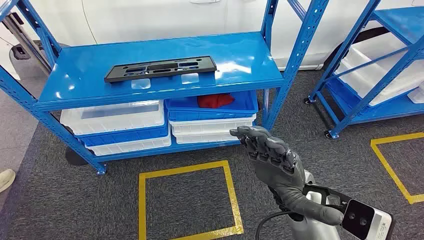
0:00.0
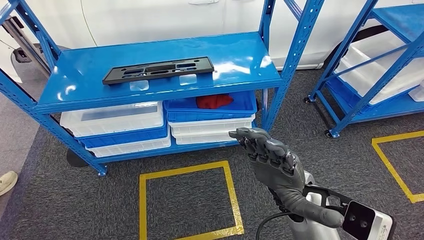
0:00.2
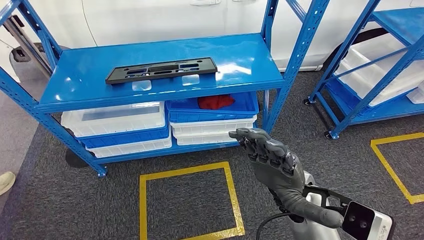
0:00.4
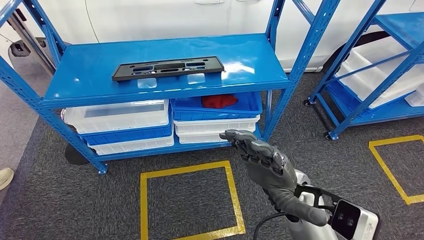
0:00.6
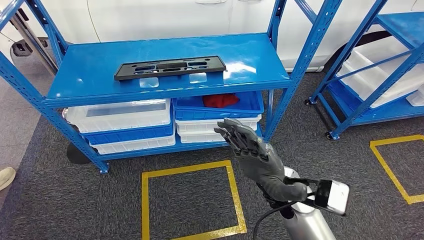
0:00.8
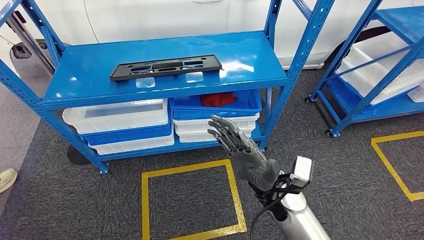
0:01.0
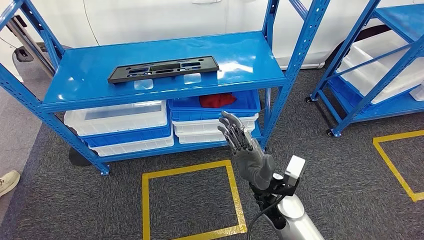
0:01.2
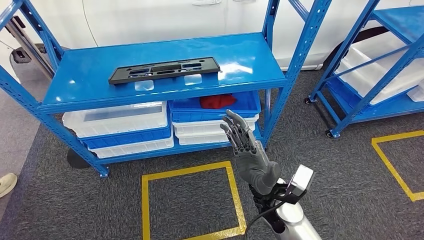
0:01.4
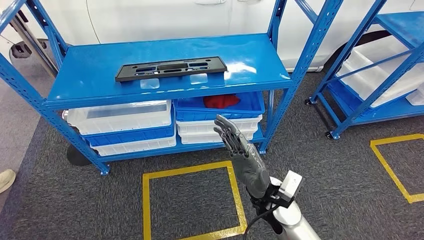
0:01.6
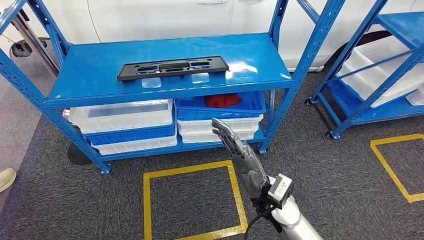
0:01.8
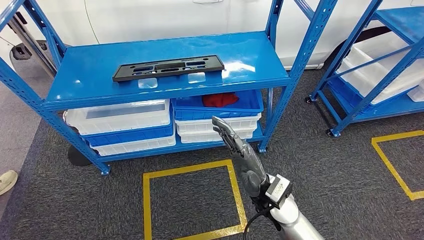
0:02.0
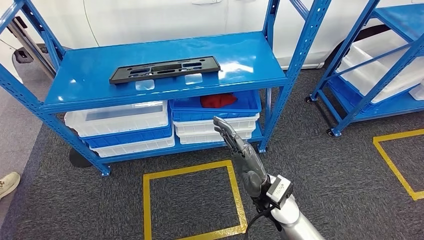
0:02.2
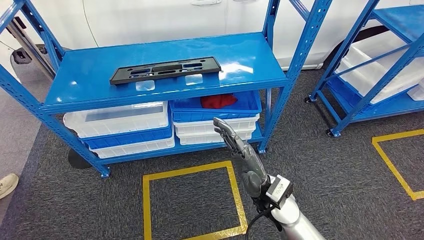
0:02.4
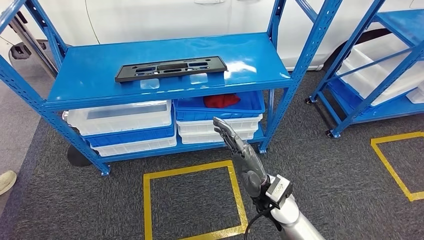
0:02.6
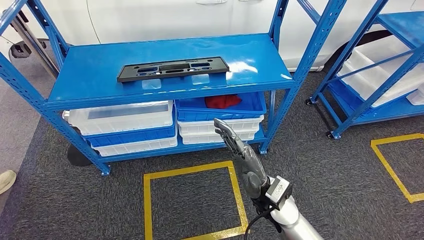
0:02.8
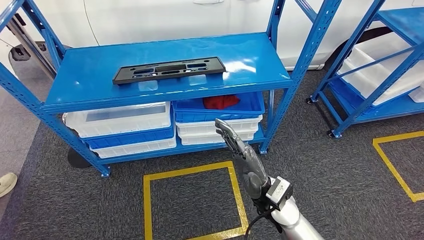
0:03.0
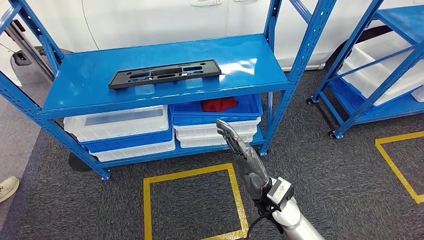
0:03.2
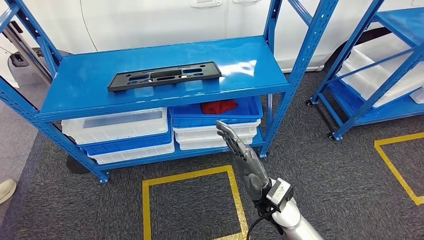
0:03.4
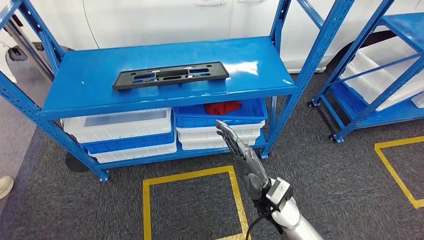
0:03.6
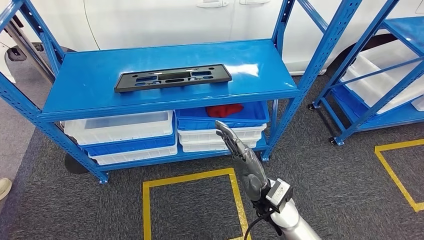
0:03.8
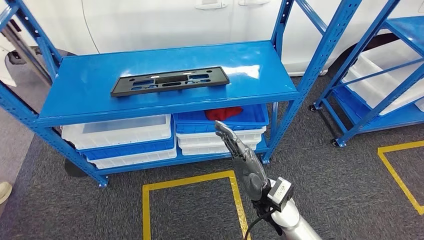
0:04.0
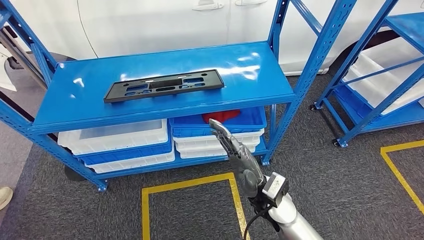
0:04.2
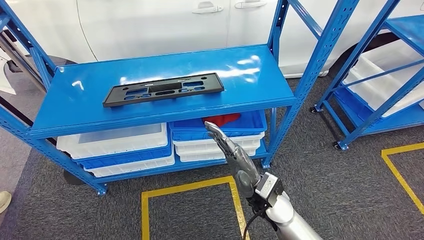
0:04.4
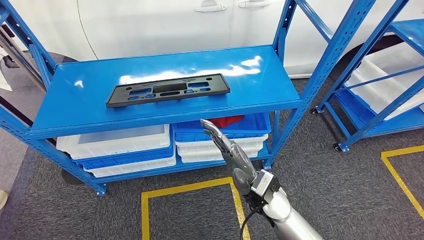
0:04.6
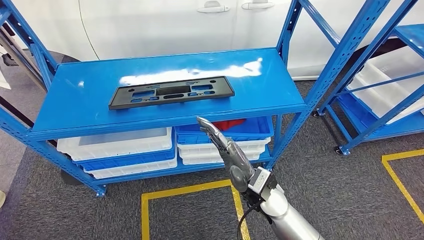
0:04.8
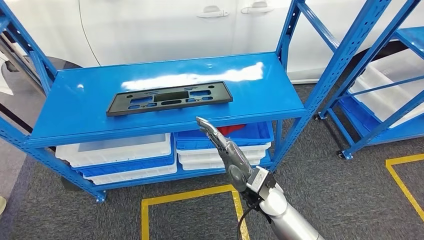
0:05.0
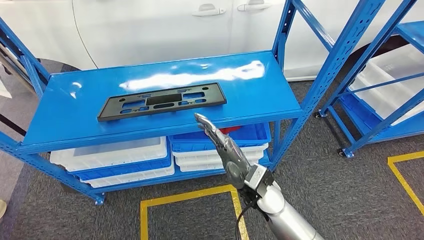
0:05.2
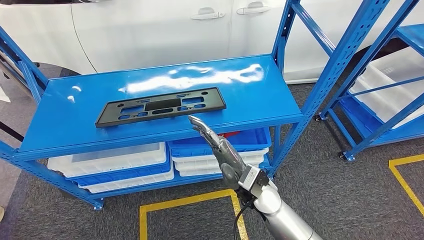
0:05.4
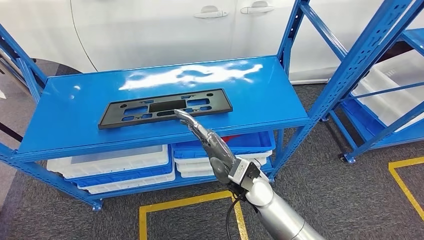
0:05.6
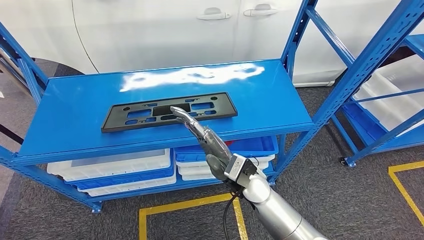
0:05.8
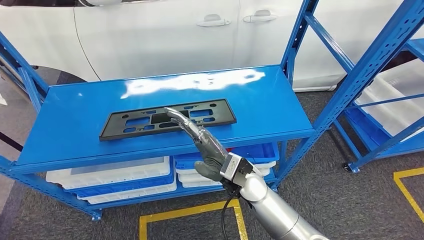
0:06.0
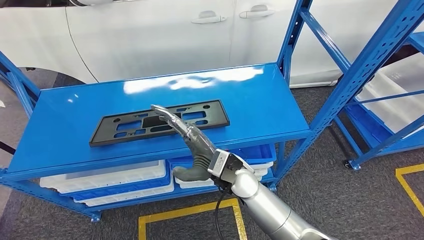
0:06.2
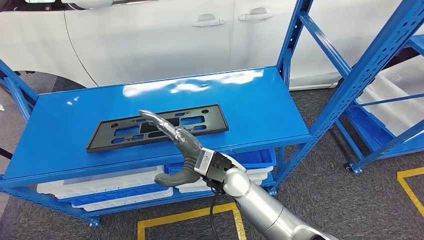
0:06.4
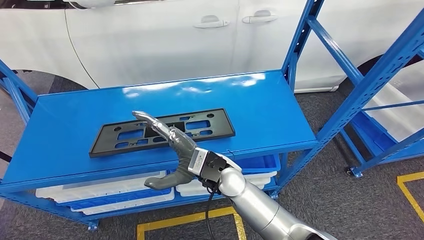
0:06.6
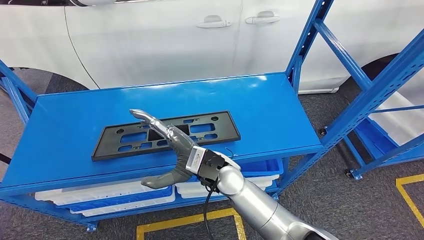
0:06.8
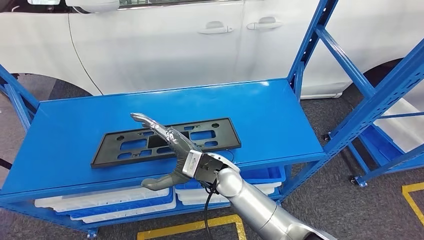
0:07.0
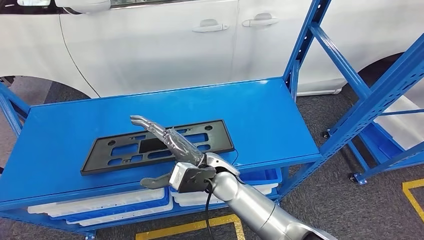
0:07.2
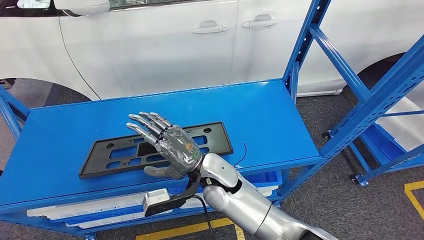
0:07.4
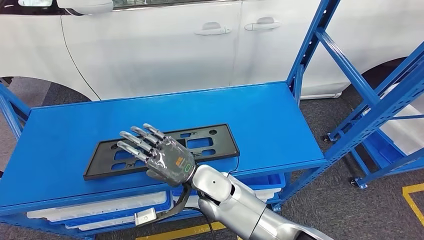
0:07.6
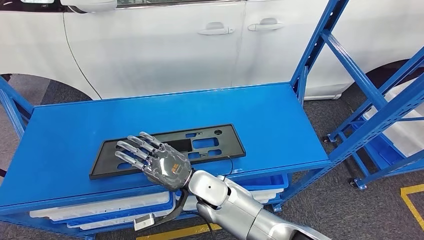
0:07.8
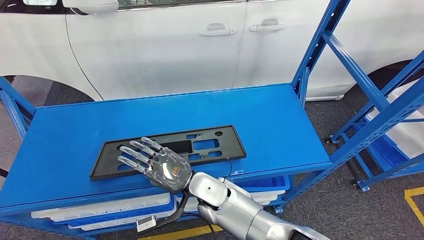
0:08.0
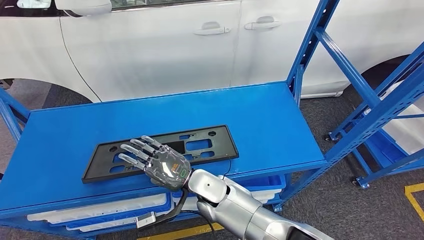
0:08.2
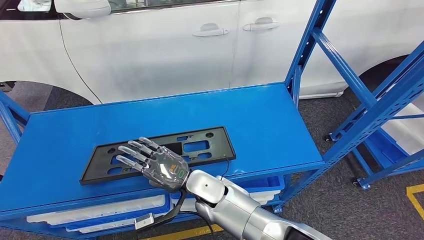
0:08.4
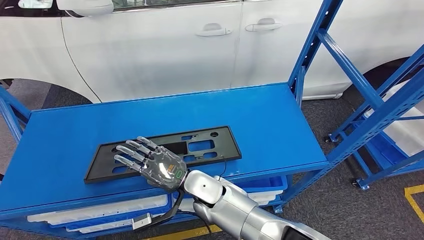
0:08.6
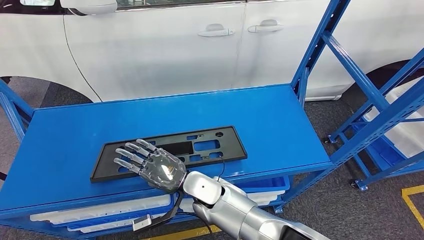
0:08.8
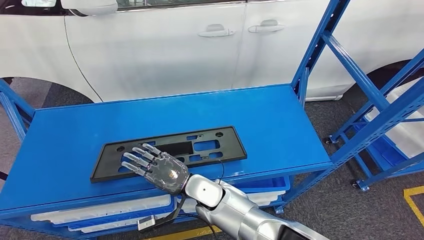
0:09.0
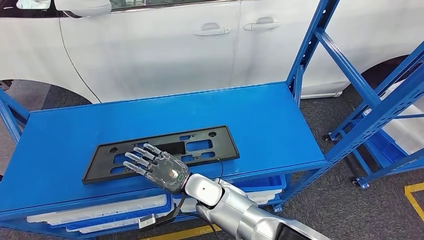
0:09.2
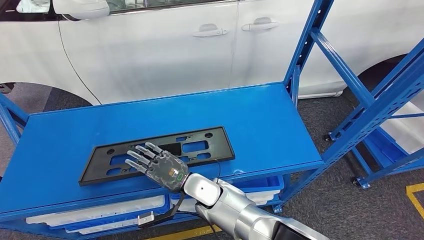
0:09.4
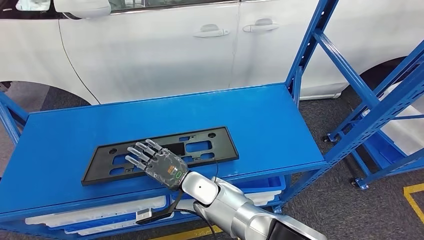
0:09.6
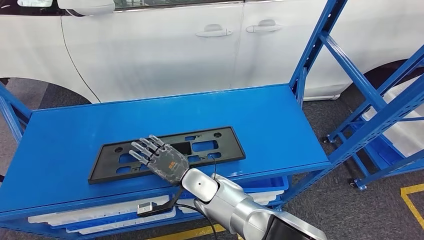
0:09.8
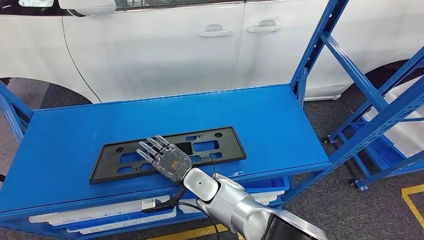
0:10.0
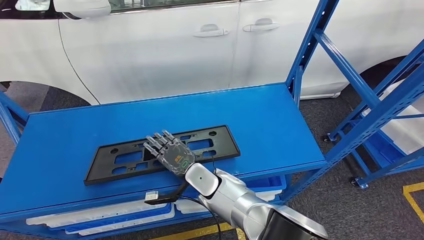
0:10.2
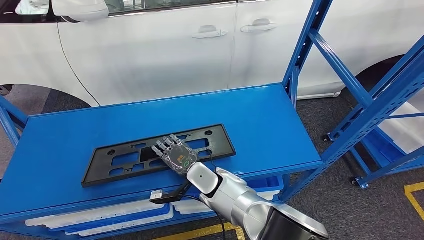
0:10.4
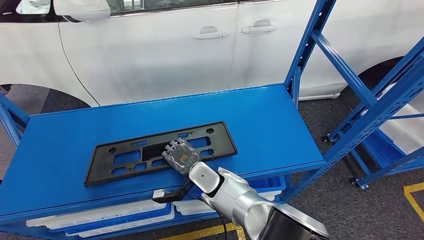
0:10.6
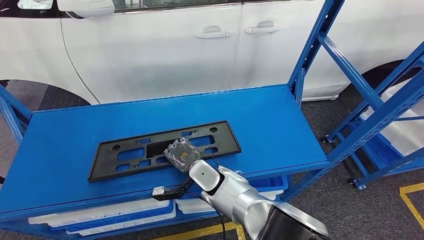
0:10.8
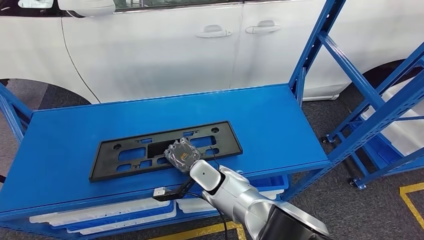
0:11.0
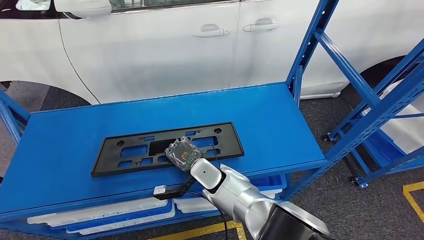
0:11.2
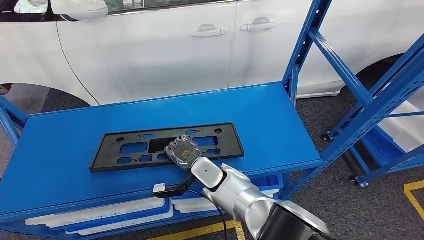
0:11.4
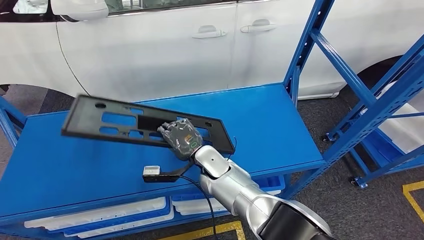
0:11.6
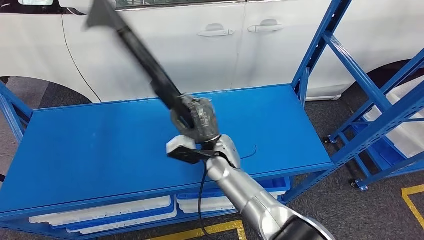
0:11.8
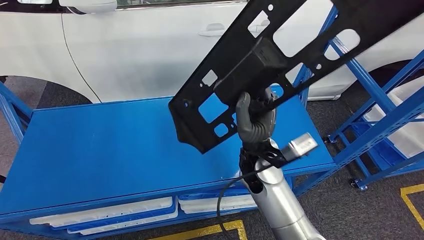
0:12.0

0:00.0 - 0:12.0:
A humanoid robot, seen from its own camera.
0:01.6 - 0:03.0: The hands move only a little.

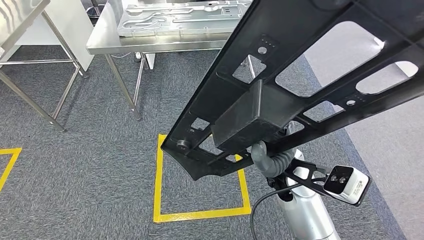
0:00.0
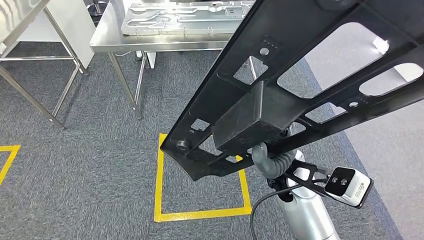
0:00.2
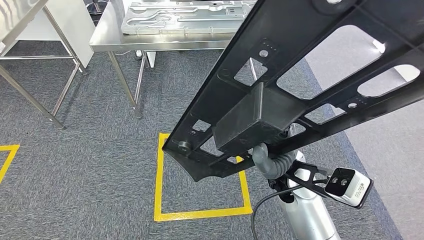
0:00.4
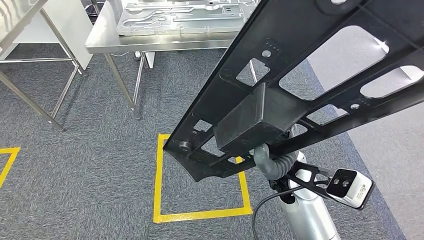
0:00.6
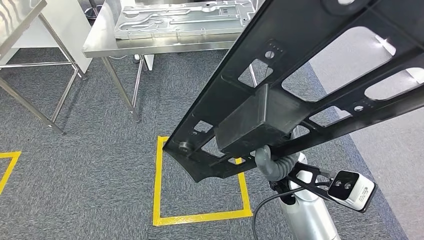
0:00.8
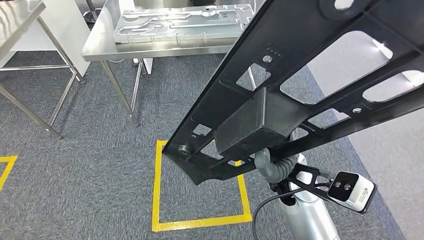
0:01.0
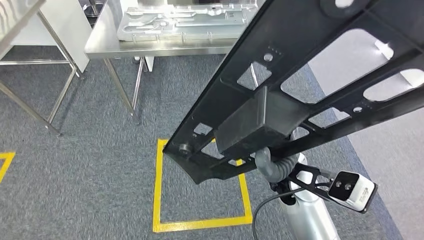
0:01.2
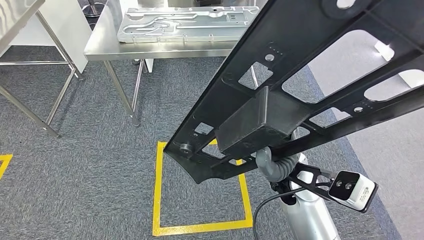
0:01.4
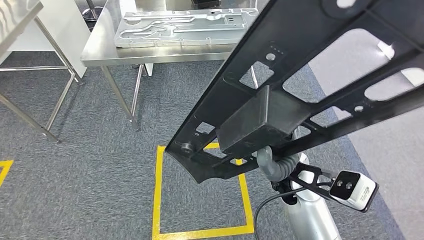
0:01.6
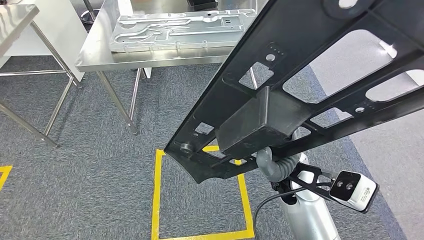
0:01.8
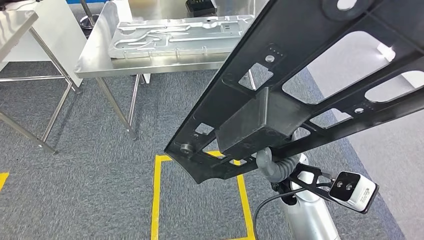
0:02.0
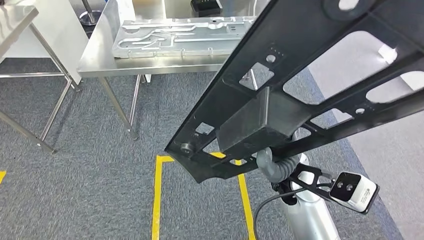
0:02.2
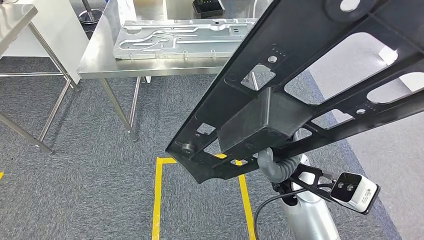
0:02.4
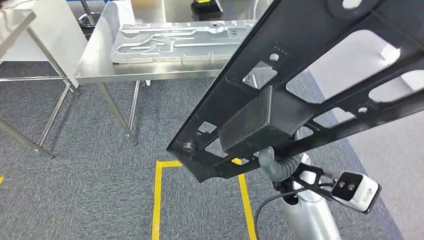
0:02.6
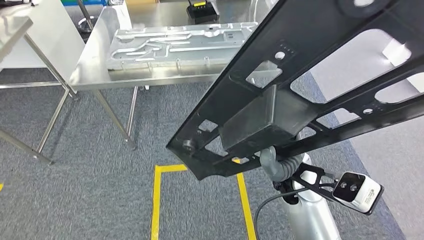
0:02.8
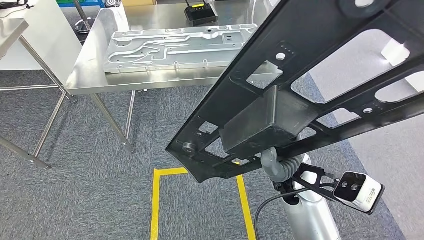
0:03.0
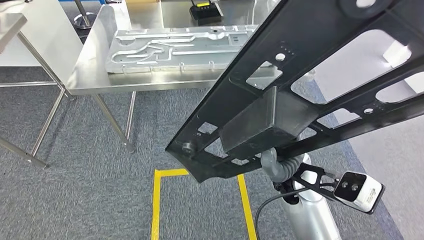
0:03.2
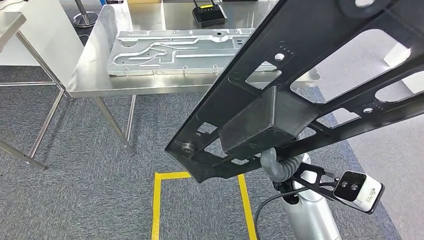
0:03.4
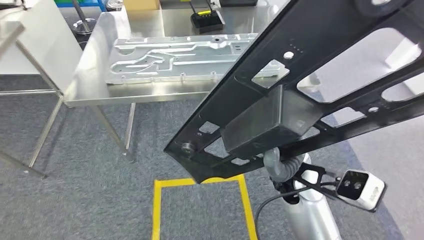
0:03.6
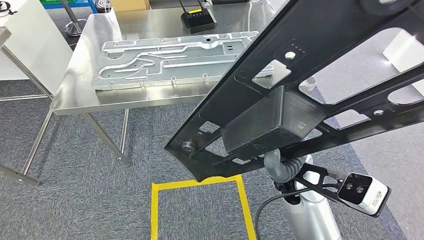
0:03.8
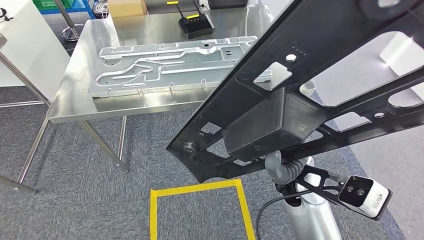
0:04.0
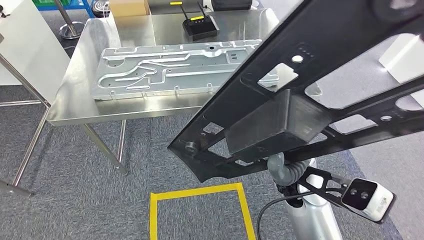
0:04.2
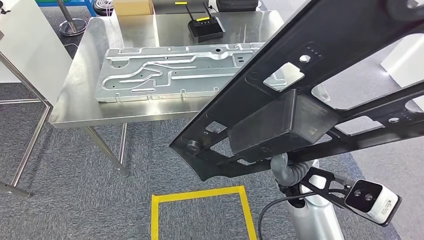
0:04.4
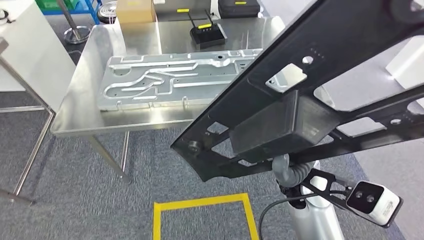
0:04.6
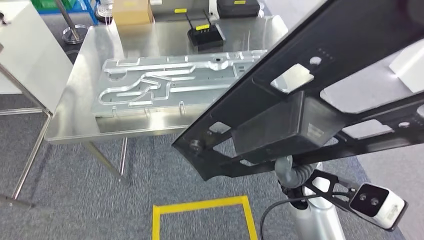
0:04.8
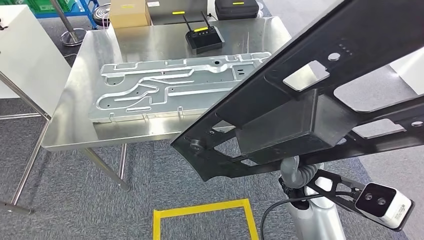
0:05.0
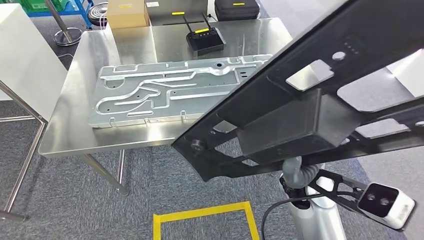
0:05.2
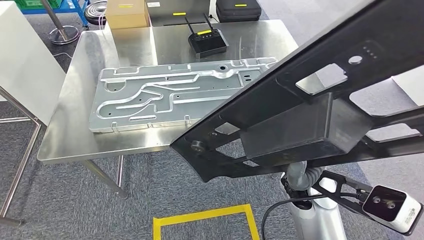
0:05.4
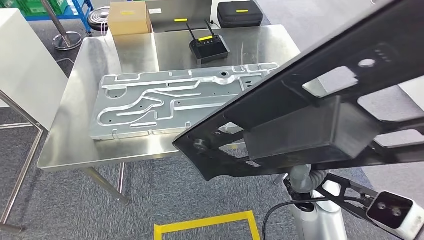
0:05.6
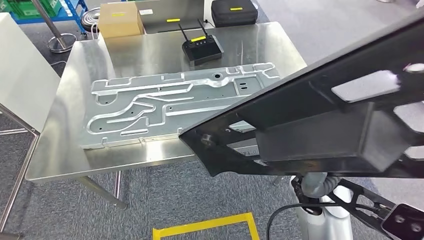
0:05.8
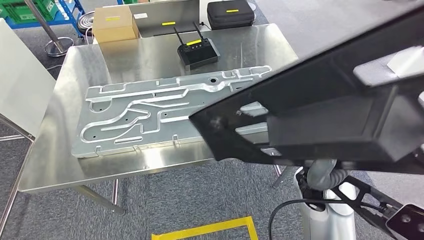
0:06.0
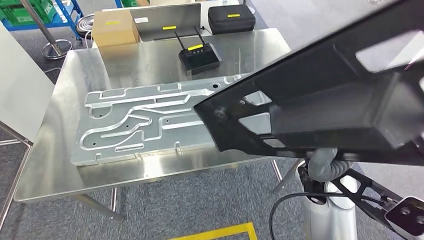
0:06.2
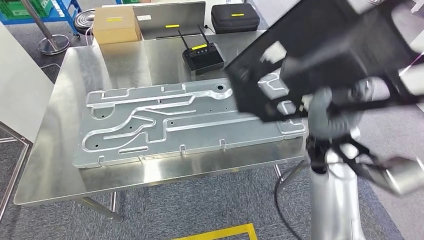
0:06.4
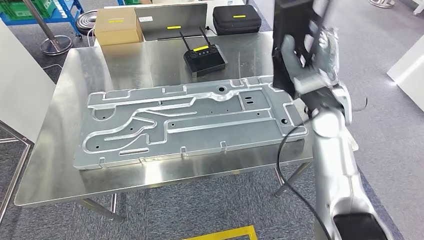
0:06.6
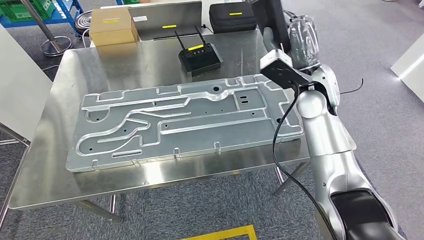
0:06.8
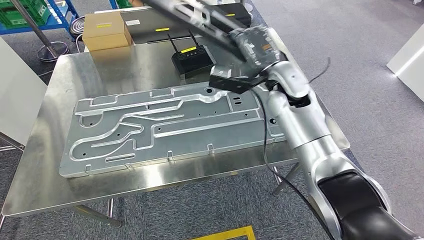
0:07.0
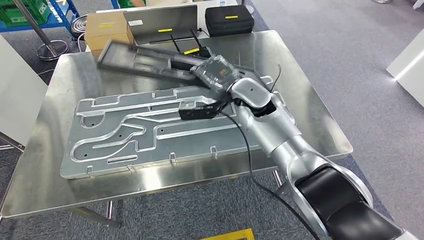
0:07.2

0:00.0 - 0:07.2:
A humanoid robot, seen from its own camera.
Step, 0:00.0 - 0:04.0: Move the large material to the workbench.
